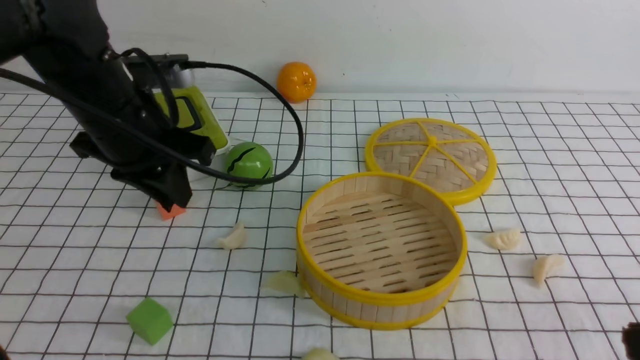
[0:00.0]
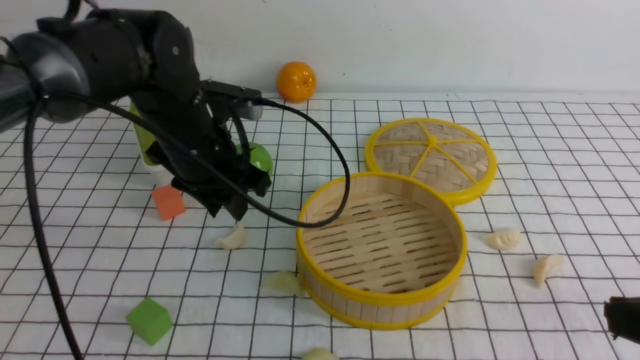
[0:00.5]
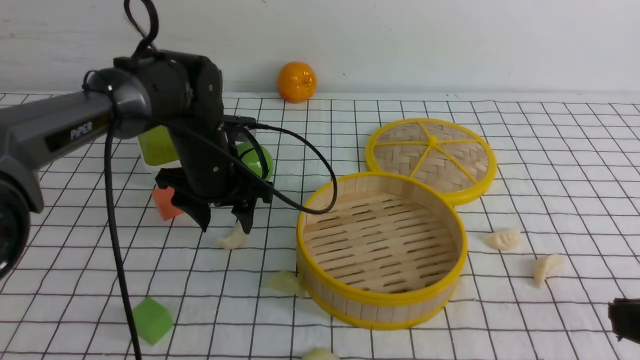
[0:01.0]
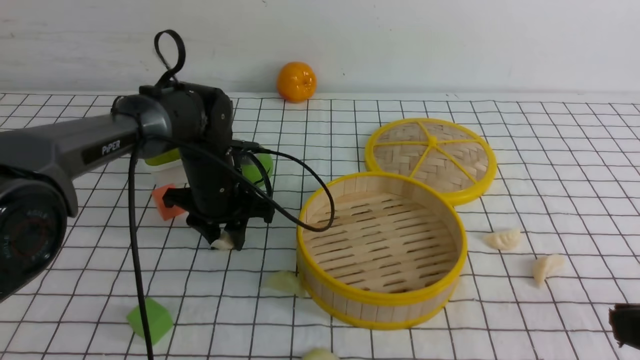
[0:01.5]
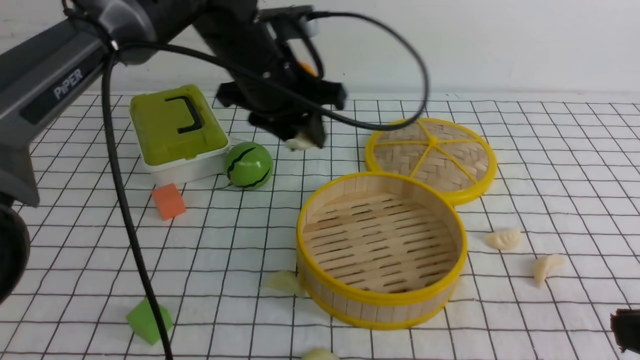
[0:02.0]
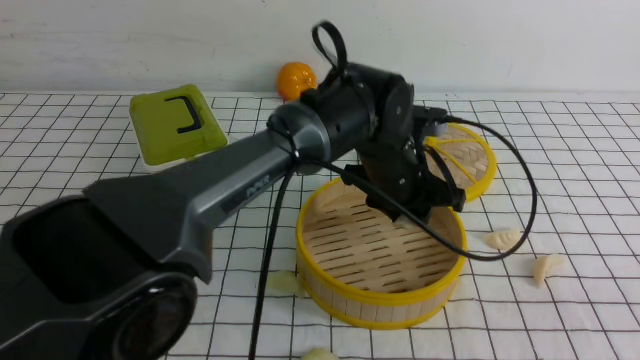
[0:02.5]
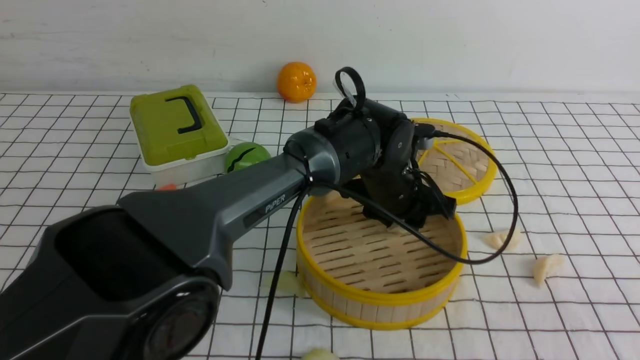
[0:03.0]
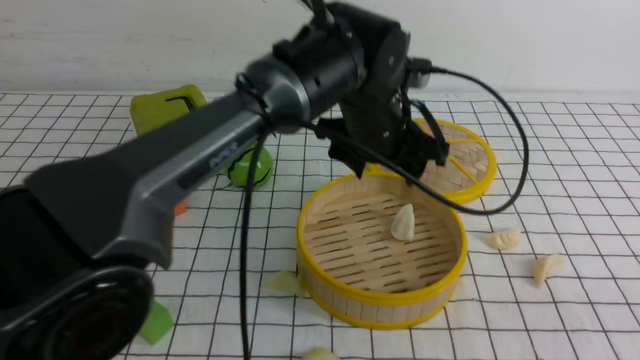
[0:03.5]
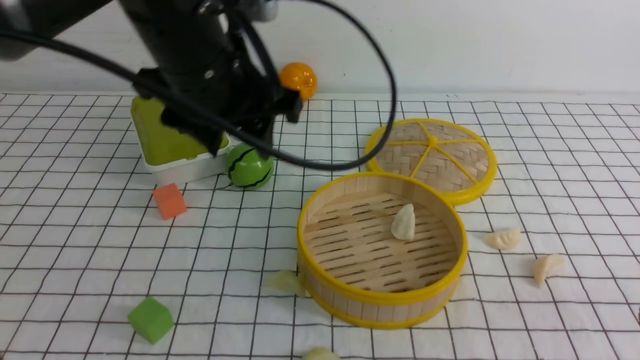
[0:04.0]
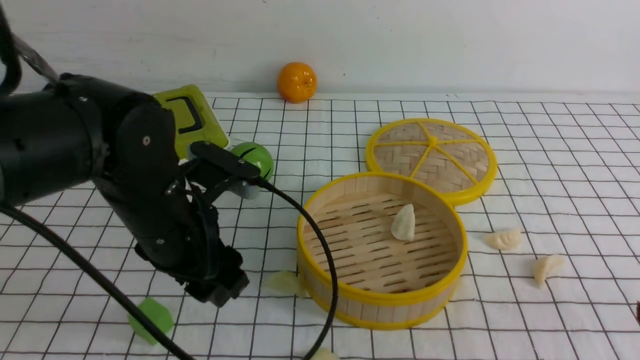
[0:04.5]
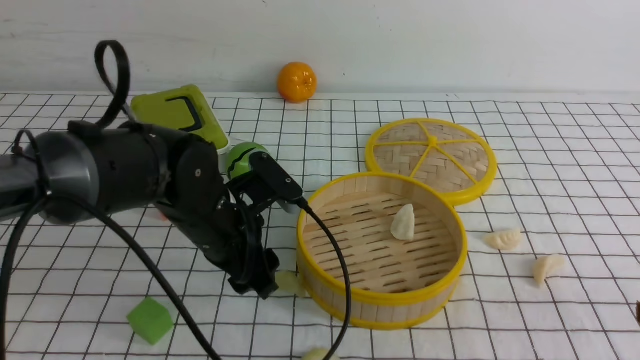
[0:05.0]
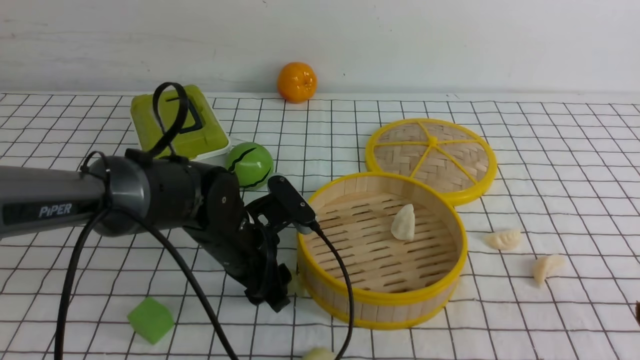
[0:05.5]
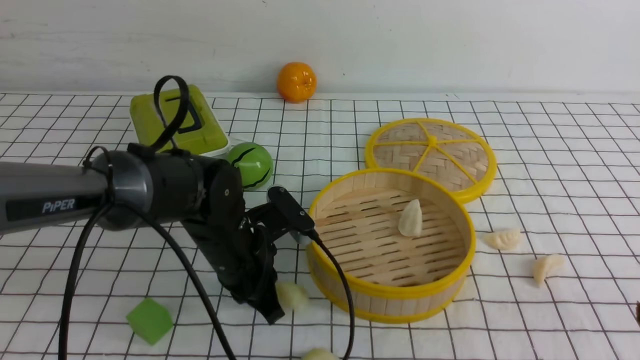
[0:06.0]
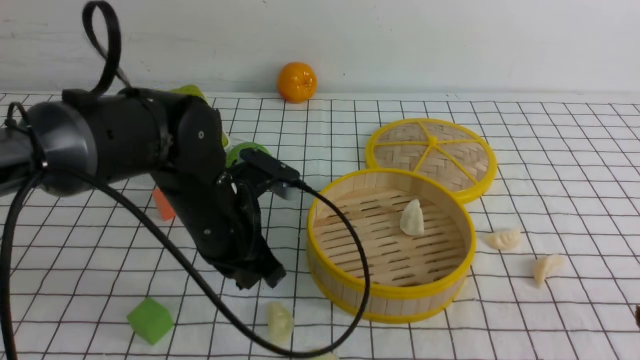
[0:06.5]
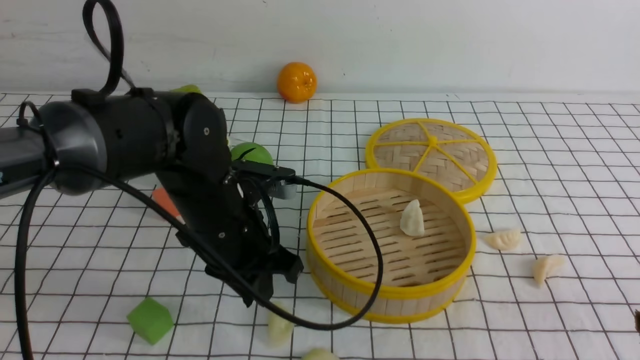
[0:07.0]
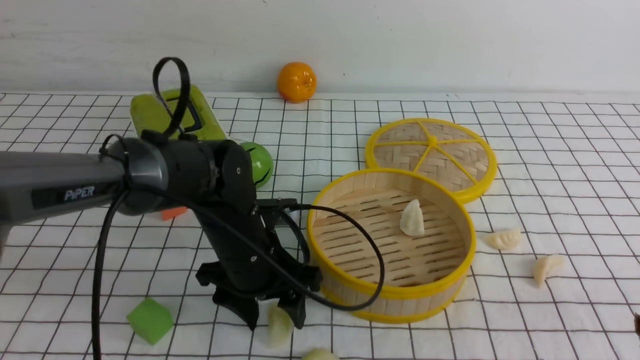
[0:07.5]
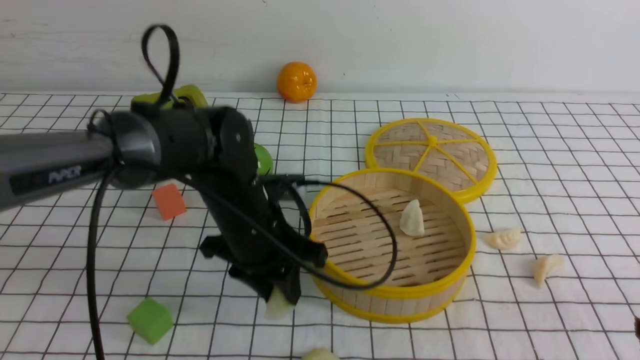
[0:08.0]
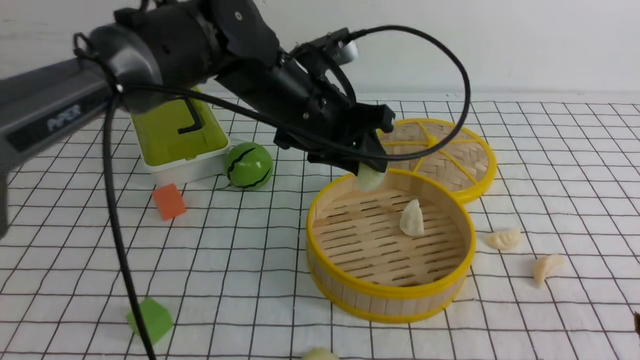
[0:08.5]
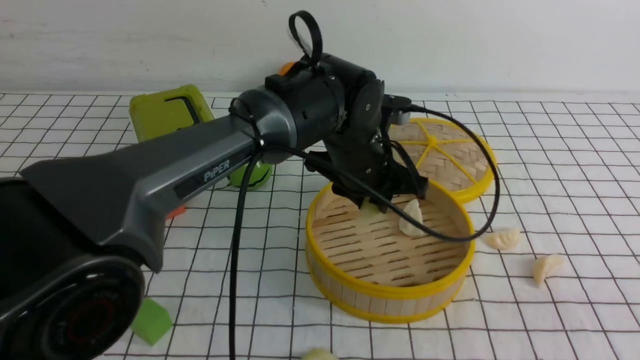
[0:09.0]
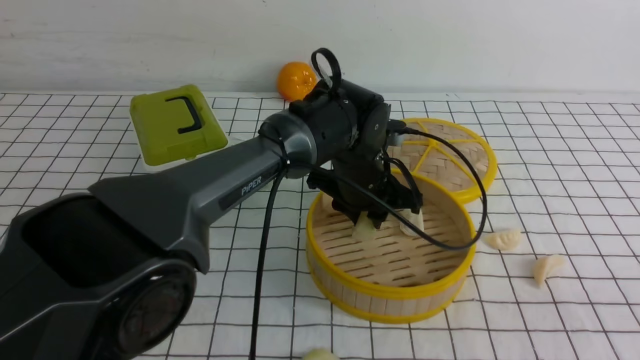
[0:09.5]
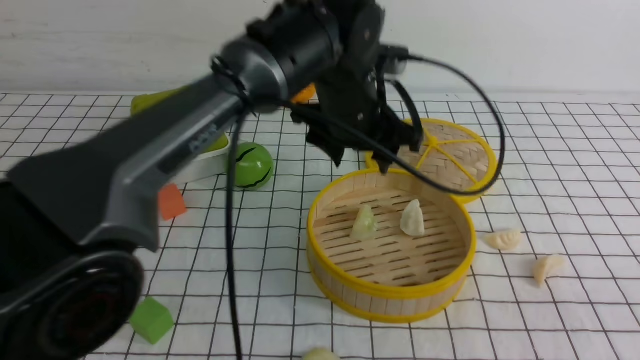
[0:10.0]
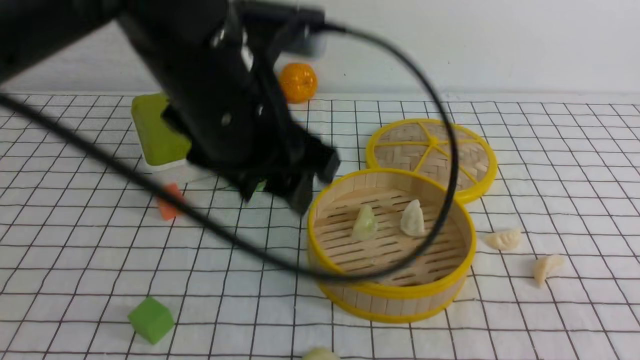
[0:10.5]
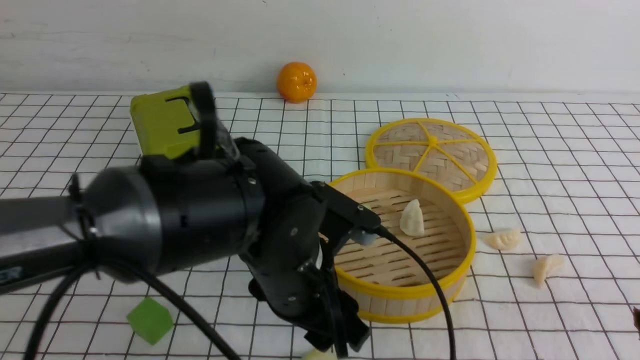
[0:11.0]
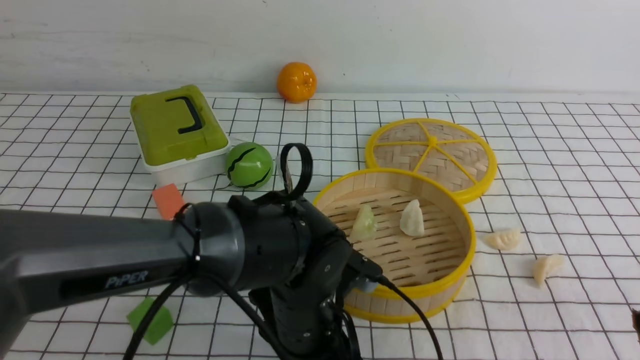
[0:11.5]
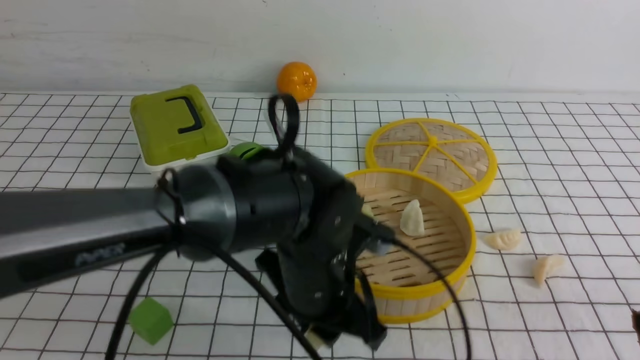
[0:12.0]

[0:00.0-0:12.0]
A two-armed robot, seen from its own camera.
Task of the whole recording: put the dumplings into the steamer on the table with the white tablecloth.
Step, 0.0 to 2.0 s: use the left arm to grab a dumpling.
Step, 2.5 to 3.0 s: use the left arm to put the dumpling into the steamer.
Step, 3.5 to 8.0 s: use the left arm to grab a dumpling.
Step, 8.5 to 10.0 s: use the left arm to put the dumpling into the steamer.
0.0 to 2.0 s: The left gripper heads to the right and forward, covering roughly 15 cm, moves some 15 cm downward and comes back, and opens, then closes again.
2.0 to 4.0 s: The right gripper ends up about 5 cm from where it was. Meanwhile the left gripper heads backward, covering roughly 10 cm, reaches some 10 cm to the right, then returns, and opens its fingers.
4.0 to 6.0 s: The left gripper shifts approximately 20 cm downward, and closes its fingers.
6.0 to 8.0 s: The left gripper moves up and down over roughly 5 cm, changing direction 2 times, and opens up.
8.0 to 10.0 s: The left gripper moves up and down over about 10 cm, changing direction 2 times, and opens its fingers.
10.0 to 12.0 s: The left gripper moves backward and downward, approximately 15 cm, and closes up.

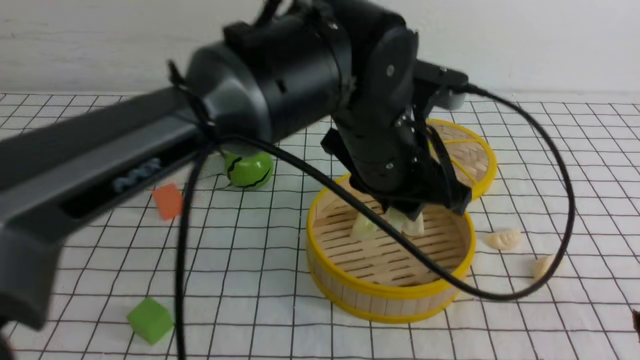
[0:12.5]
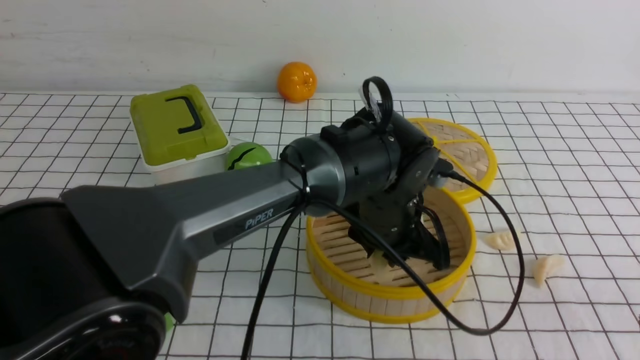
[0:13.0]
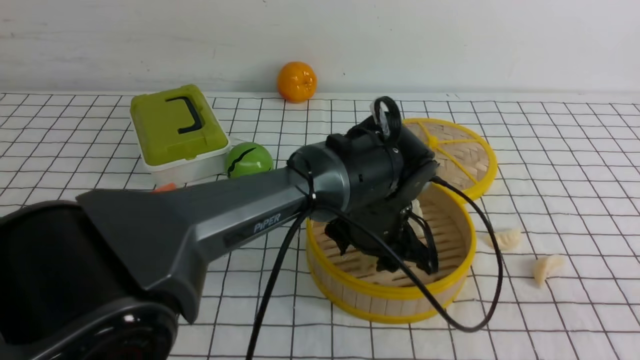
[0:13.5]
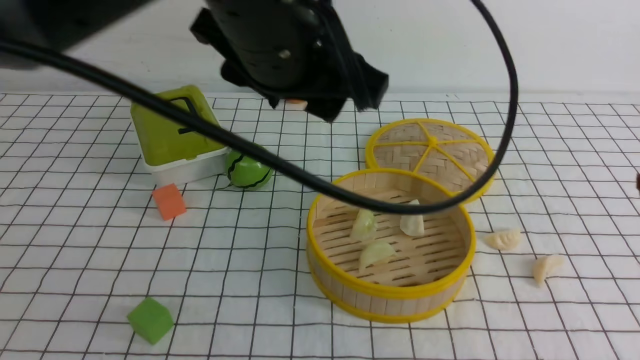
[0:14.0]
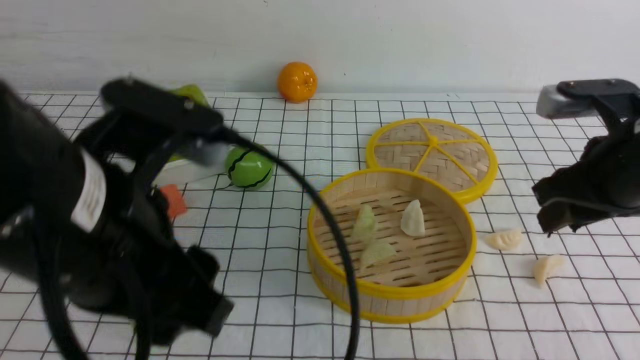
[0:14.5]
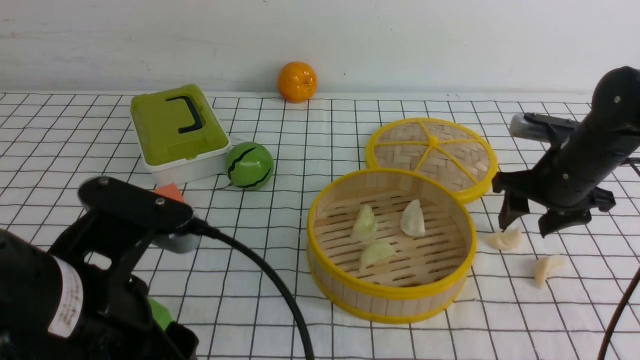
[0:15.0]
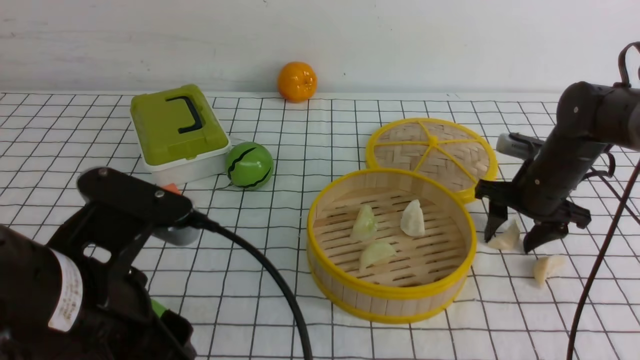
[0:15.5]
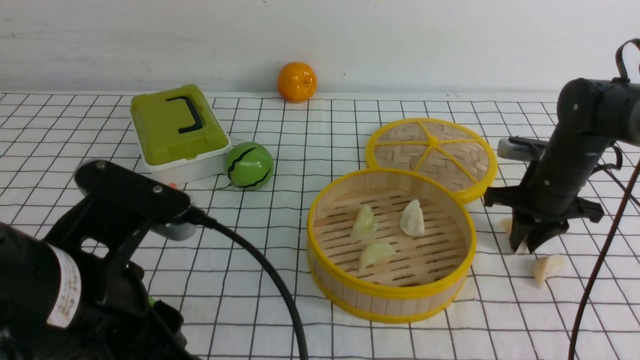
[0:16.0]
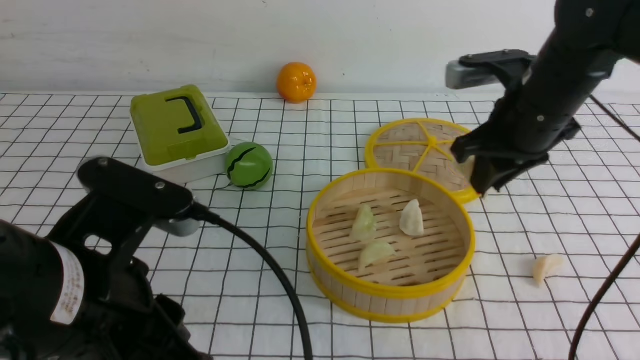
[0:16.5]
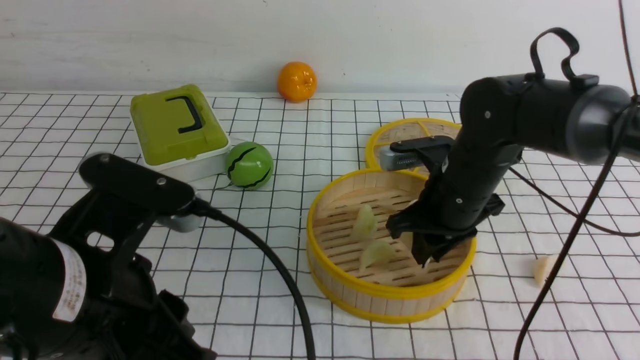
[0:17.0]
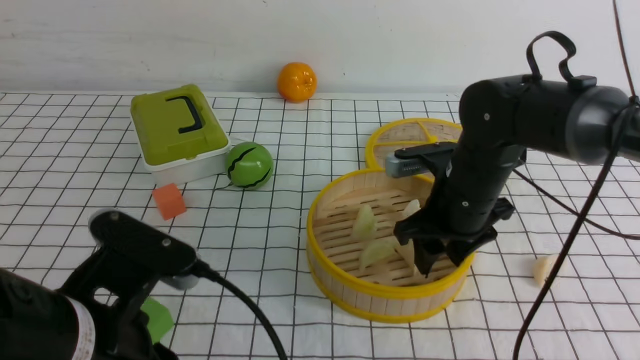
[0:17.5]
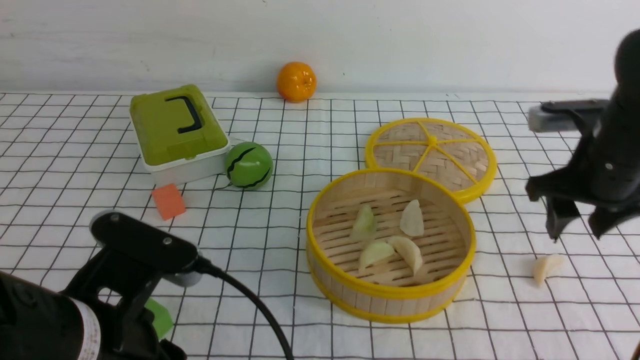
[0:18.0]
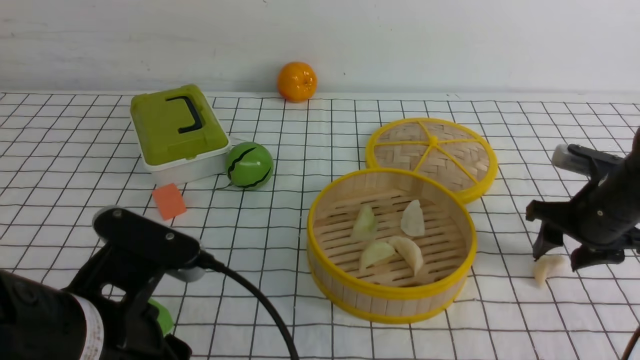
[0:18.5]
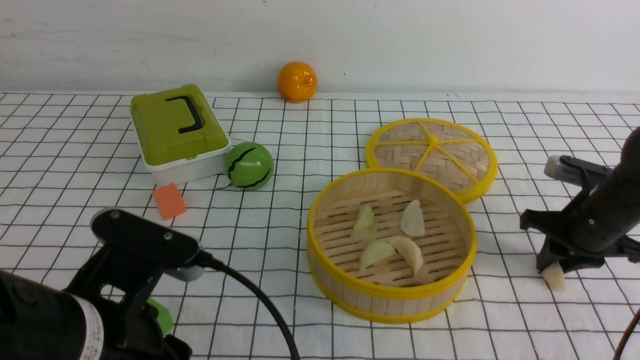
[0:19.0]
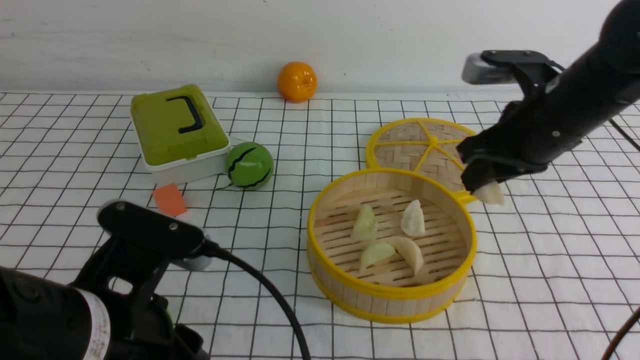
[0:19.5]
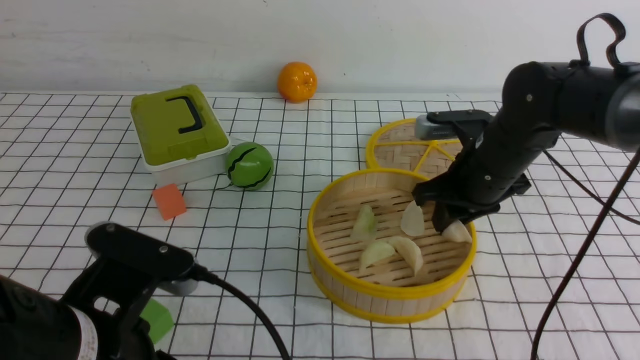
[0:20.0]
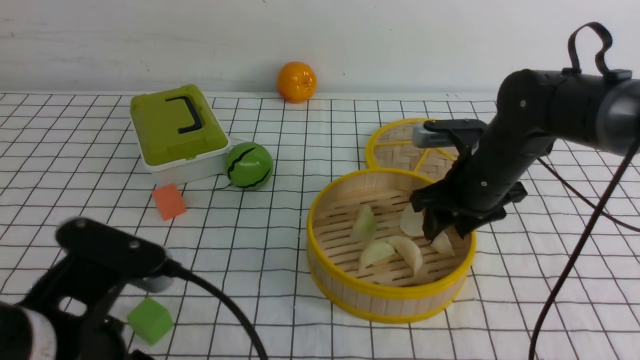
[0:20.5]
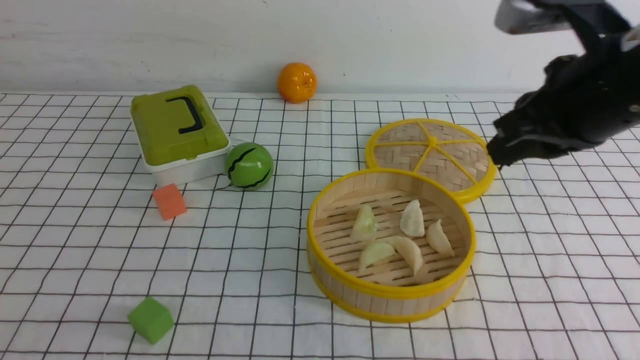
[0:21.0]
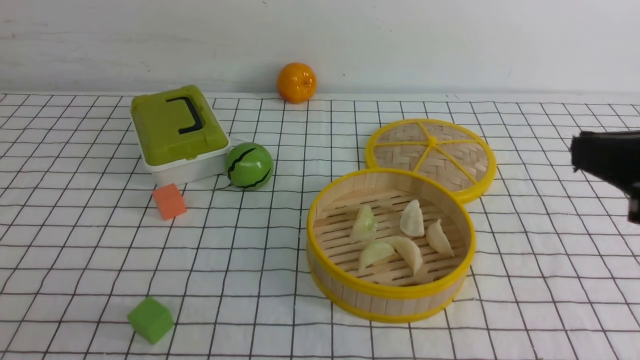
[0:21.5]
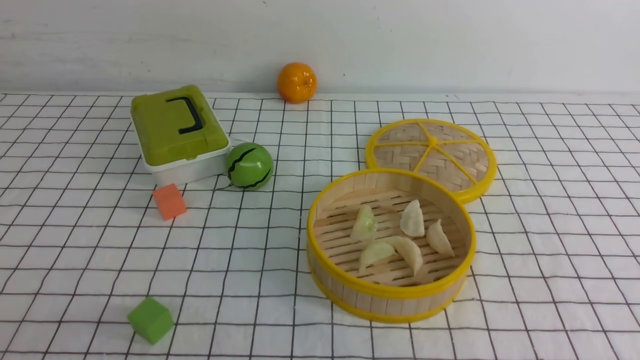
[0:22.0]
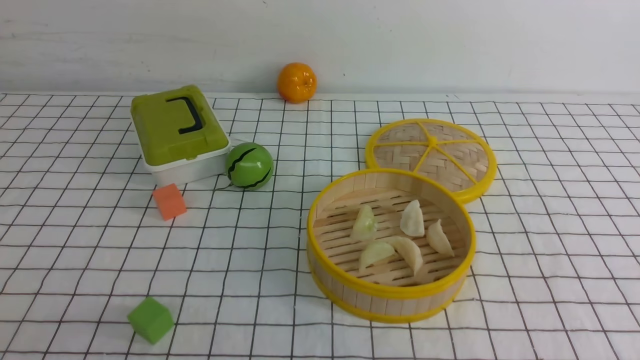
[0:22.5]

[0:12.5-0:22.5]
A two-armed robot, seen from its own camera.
Task of the whole recording: put the dumplings into the steamer on the table with the white tablecloth.
Step, 12.5 to 13.5 s: use the left arm to put the dumpling into the steamer.
Step, 14.0 to 16.5 s: use the right arm to grab a dumpling.
Step, 17.0 to 17.5 s: use the right arm to put the dumpling into the steamer.
Step, 18.0 to 19.0 s: use the right arm to grab a dumpling.
Step, 19.5 to 20.5 s: use the right arm to put the dumpling into the steamer.
12.5 to 14.5 s: The left gripper goes up and down, about 20 cm each way, reversing 2 times, and opens. Meanwhile the right gripper travels forward by roughly 25 cm.
14.5 to 16.5 s: The right gripper is displaced forward and to the left by roughly 10 cm, and reaches approximately 15 cm downward, then returns. Meanwhile the left gripper ends up roughly 5 cm from where it was, and closes.
16.5 to 18.5 s: The right gripper travels to the right and downward by roughly 15 cm, and opens.
18.5 to 20.5 s: The right gripper goes roughly 15 cm to the left and upward, and closes, then opens again.
20.5 to 22.5 s: The left gripper is displaced to the left, backward and upward by roughly 15 cm; the right gripper is displaced backward and upward by approximately 30 cm, and closes up.
